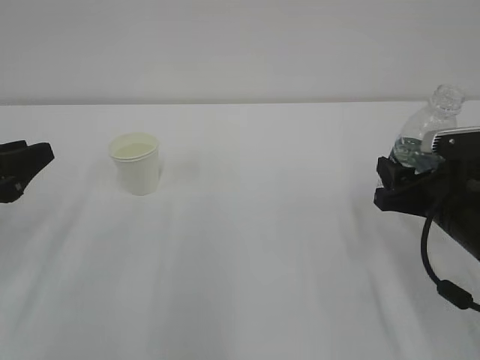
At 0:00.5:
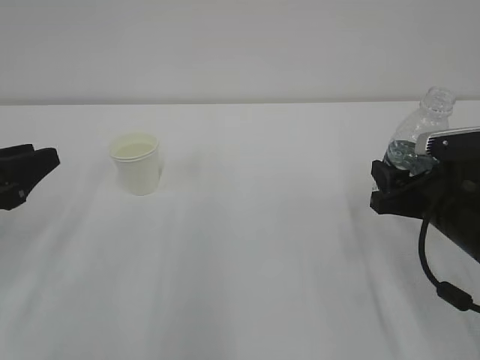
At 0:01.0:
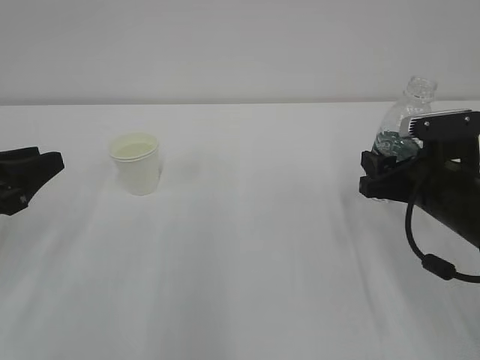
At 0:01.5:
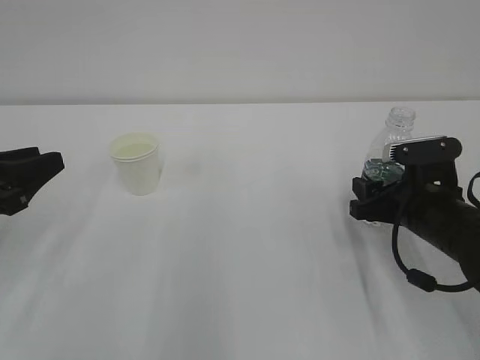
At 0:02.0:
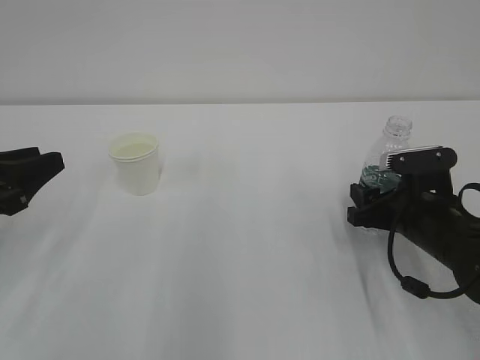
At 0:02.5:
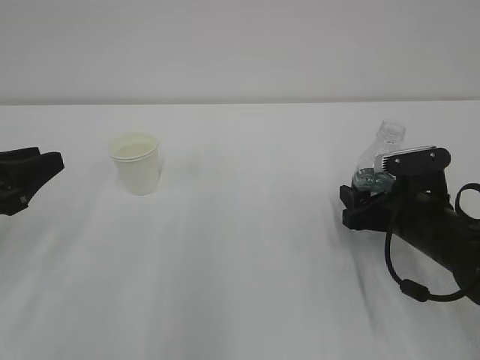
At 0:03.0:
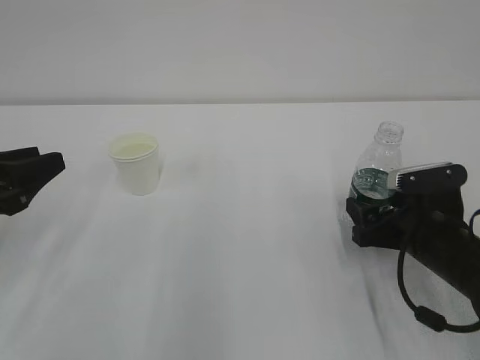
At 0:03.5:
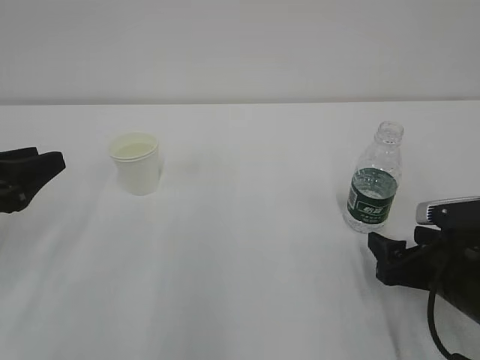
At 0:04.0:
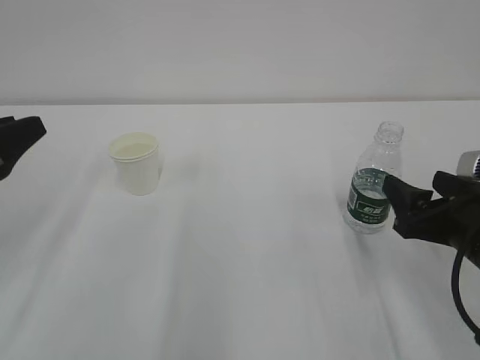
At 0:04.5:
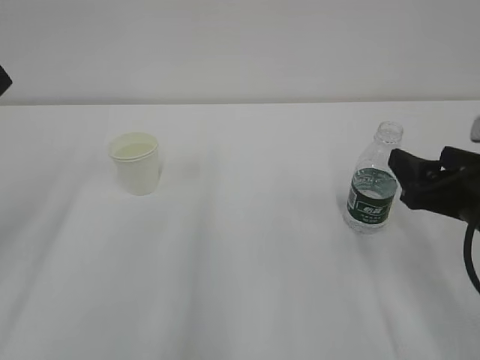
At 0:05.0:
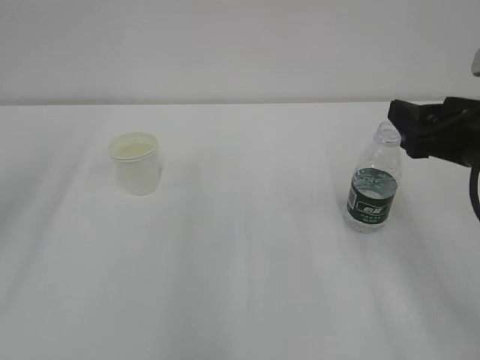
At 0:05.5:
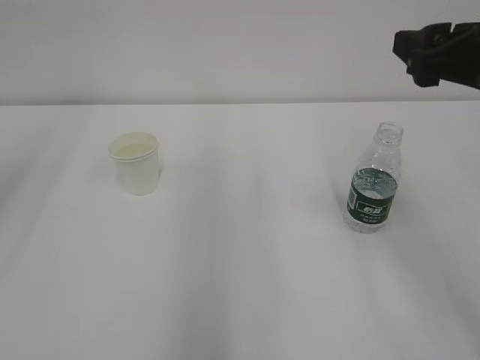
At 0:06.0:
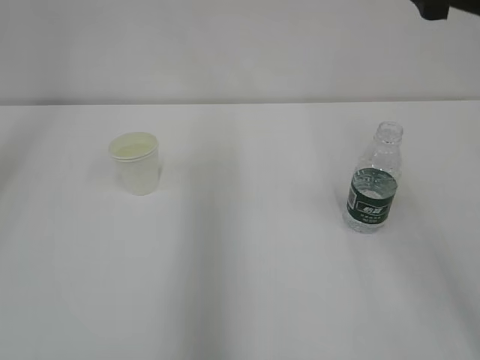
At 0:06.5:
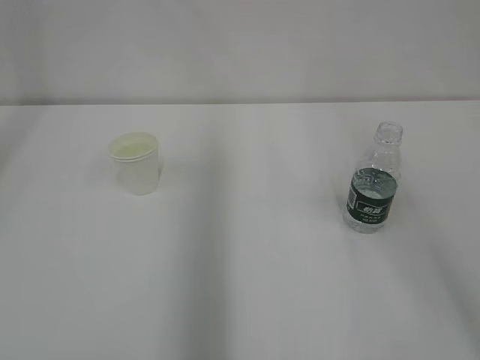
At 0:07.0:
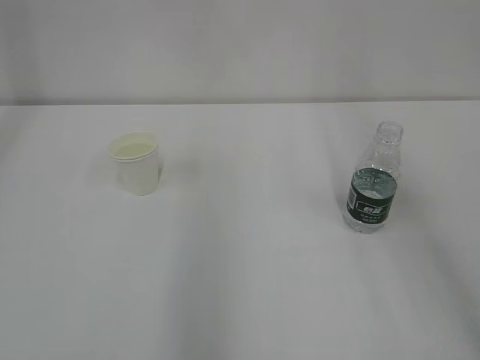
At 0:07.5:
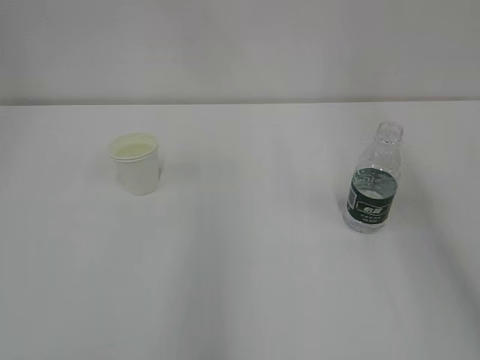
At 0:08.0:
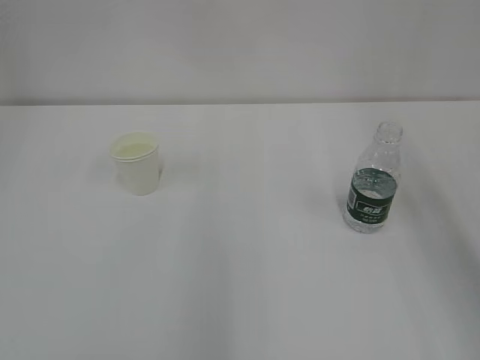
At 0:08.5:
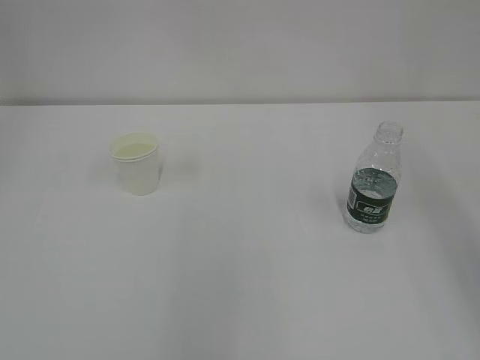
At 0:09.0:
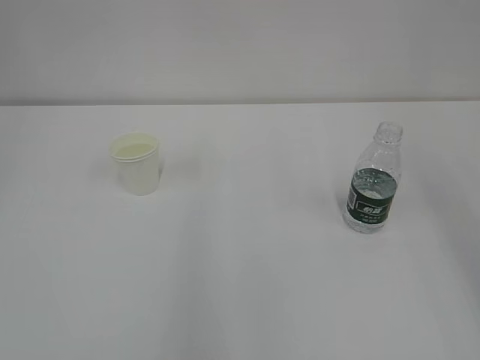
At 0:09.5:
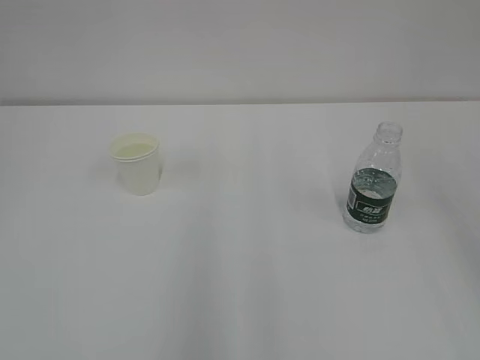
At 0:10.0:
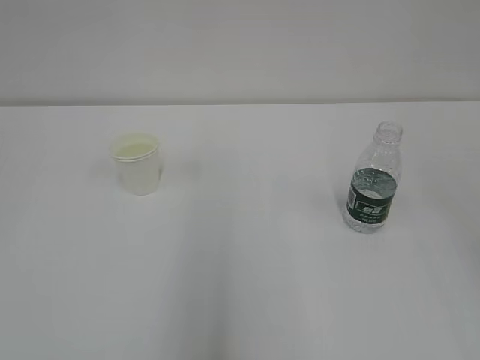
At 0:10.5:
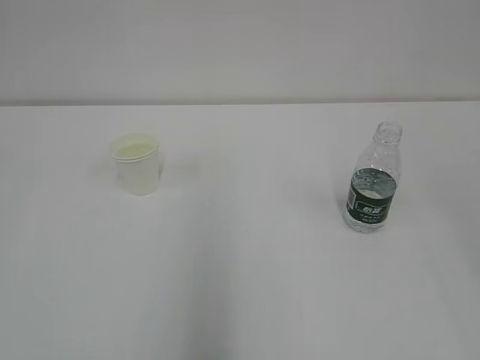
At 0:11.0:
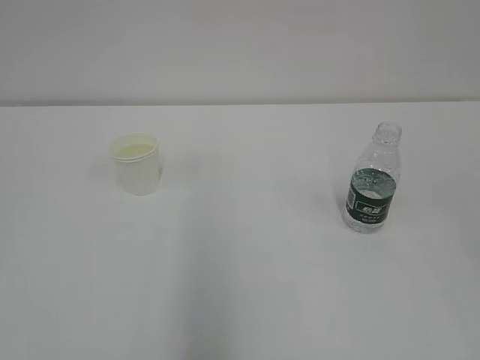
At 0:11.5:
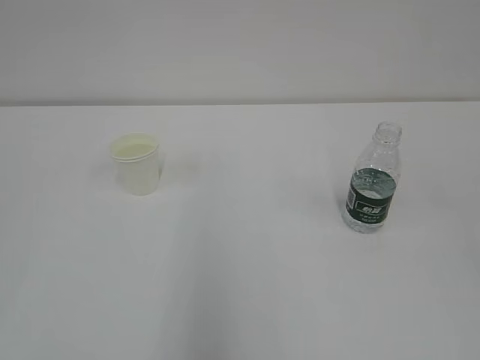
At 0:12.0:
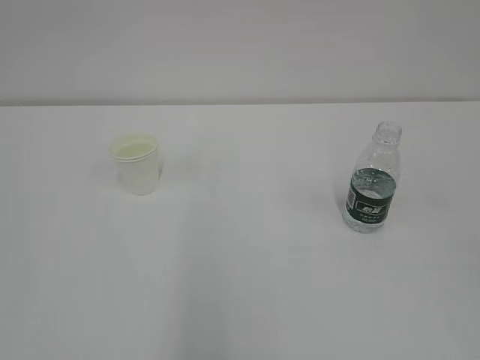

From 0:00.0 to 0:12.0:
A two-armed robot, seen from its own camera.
From 0:00.0 to 0:02.0: The right gripper shifts by roughly 5 cm.
From 0:02.0 to 0:04.0: The right gripper travels backward and upward by about 10 cm, and opens.
From 0:04.0 to 0:06.0: The grippers both shift upward by some 20 cm.
From 0:06.0 to 0:08.0: The right gripper goes some 20 cm upward and backward.

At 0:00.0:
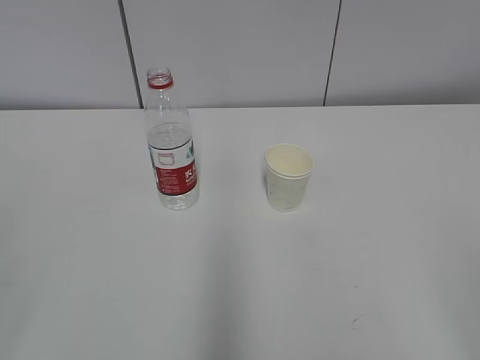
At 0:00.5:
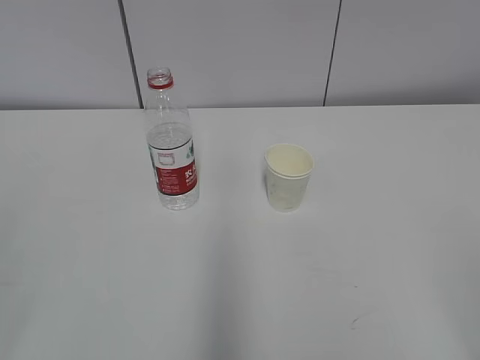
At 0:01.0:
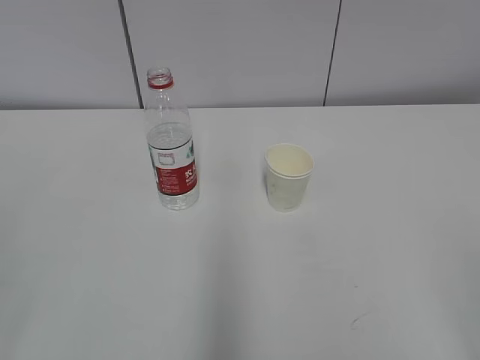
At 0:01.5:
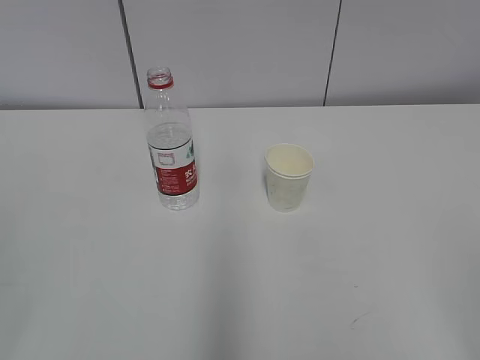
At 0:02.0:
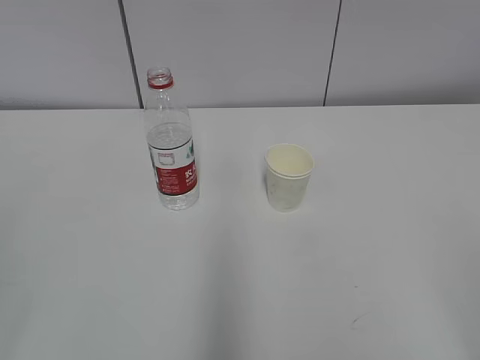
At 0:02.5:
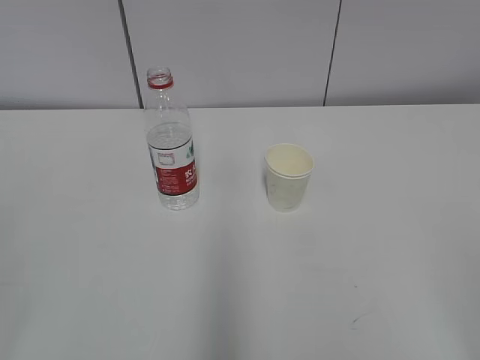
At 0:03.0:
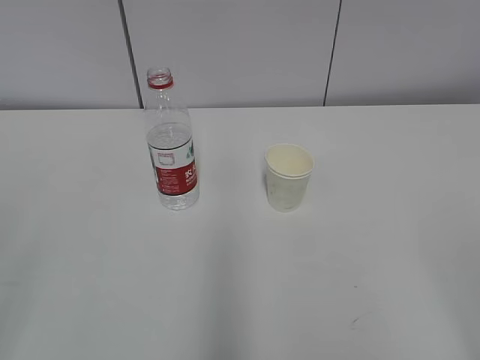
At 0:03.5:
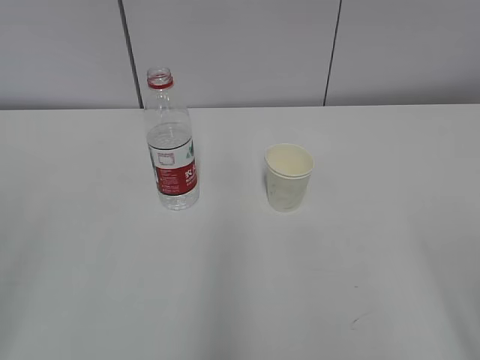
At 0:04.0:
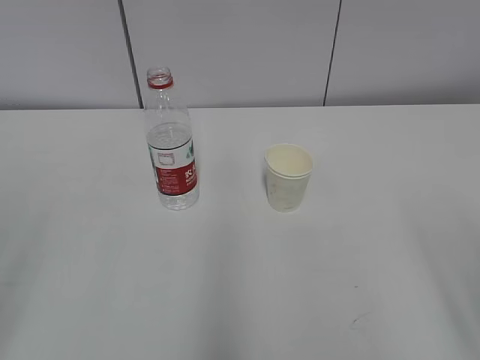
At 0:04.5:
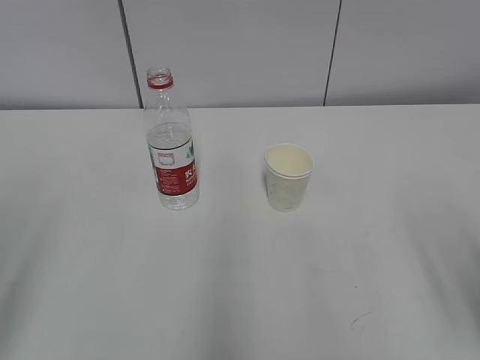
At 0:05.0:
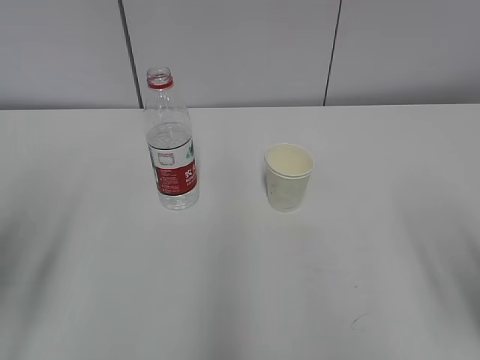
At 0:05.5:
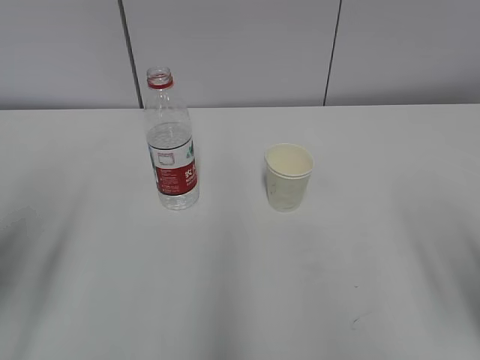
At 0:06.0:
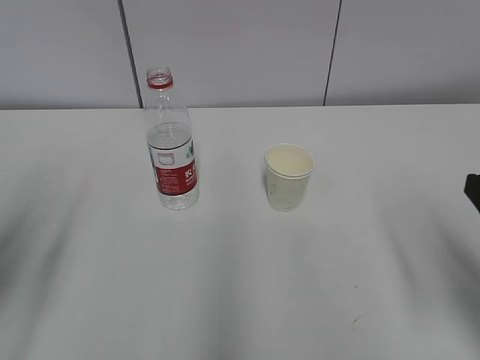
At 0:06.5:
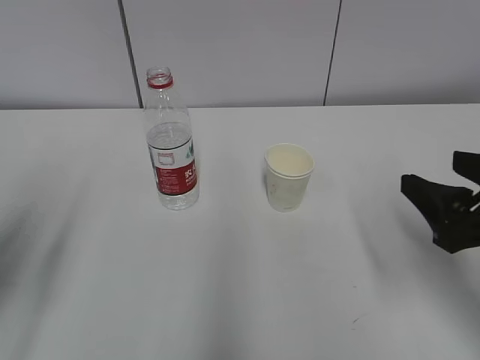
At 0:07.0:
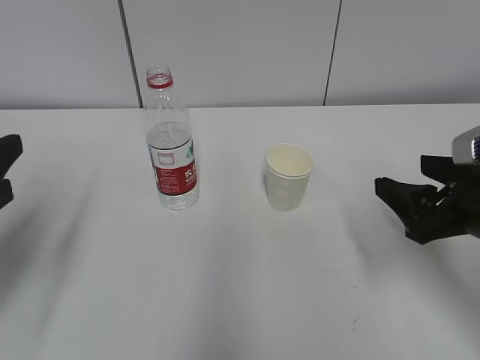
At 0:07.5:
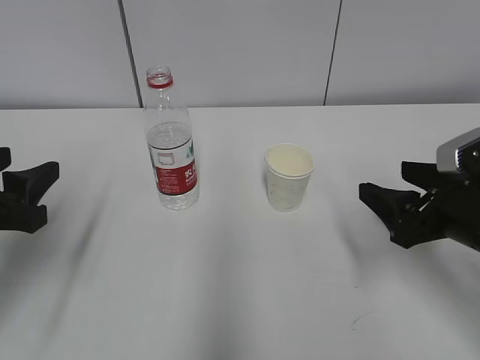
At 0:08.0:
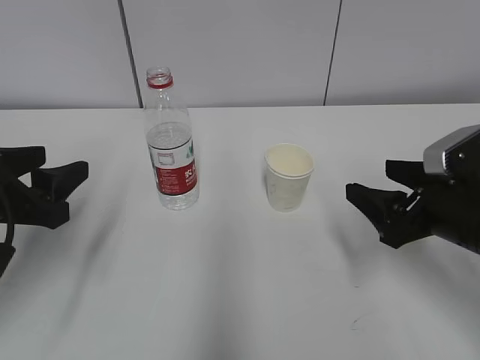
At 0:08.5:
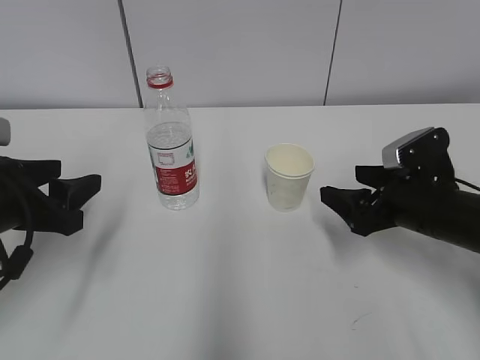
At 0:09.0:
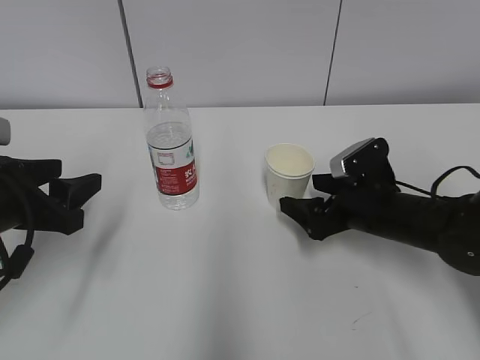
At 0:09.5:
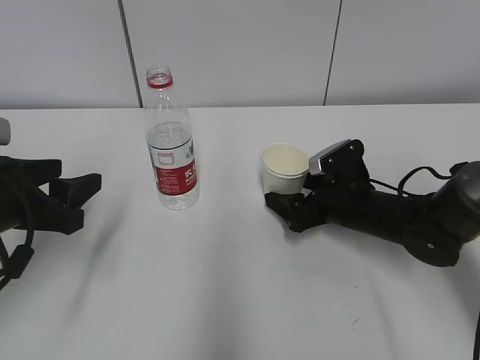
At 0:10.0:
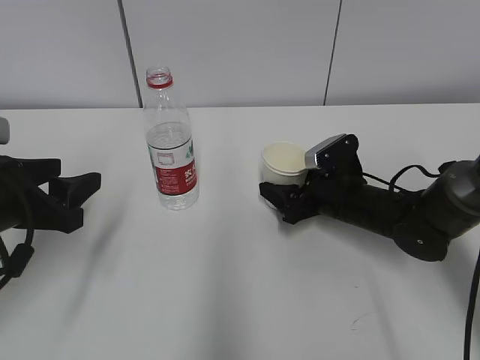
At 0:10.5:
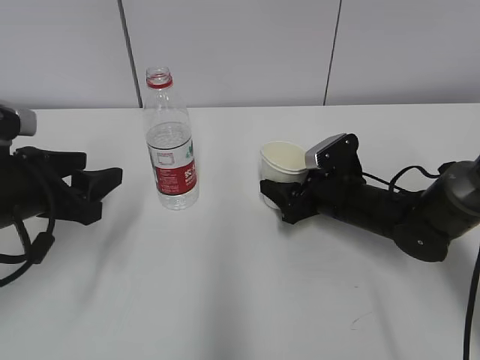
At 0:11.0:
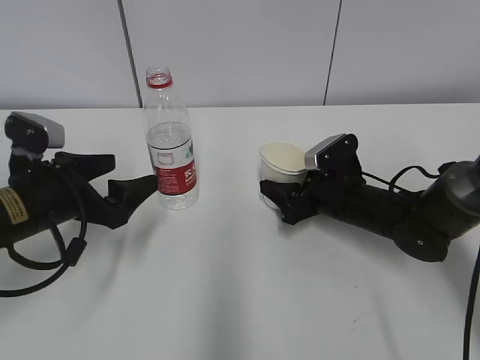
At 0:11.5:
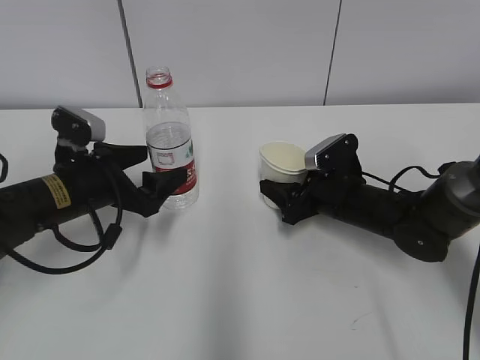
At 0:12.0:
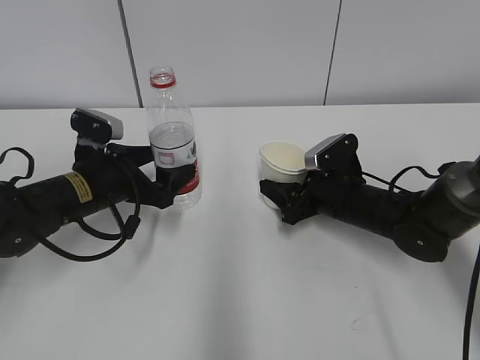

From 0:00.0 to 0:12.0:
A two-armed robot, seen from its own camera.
Step, from 0:00.0 to 0:08.0: Grab the paper cup with the right hand.
Step, from 0:08.5 to 0:10.5: Grab the water bottle with the left hand.
From 0:04.0 to 0:06.0: The two grippers go some 10 cm forward.
From 0:06.0 to 0:08.0: Both grippers travel together forward and downward, approximately 10 cm.
From 0:08.0 to 0:10.0: The right gripper moves forward, downward and to the left, some 15 cm.
From 0:10.0 to 0:12.0: The left gripper is displaced forward, downward and to the right by roughly 15 cm, and opens; the right gripper closes up.

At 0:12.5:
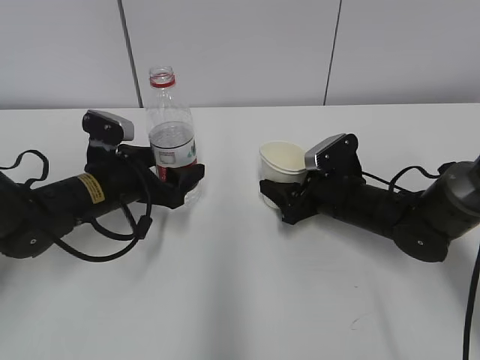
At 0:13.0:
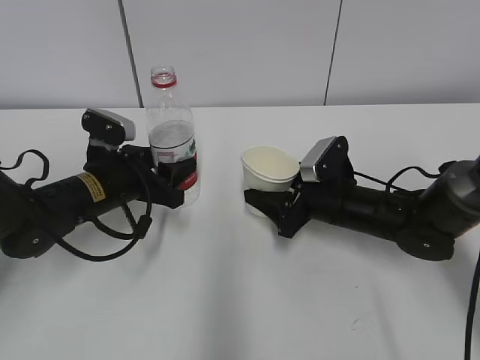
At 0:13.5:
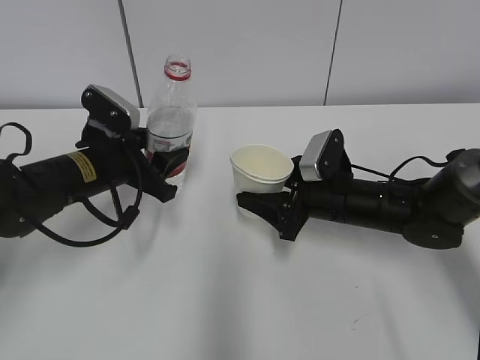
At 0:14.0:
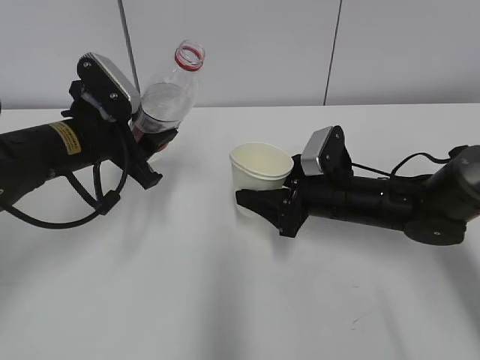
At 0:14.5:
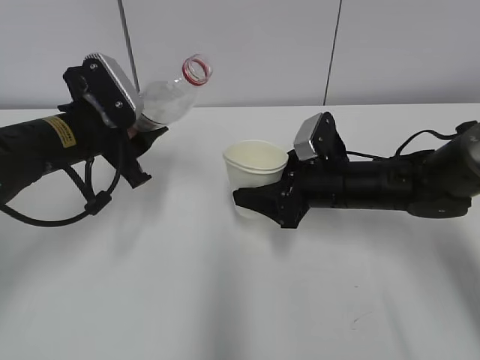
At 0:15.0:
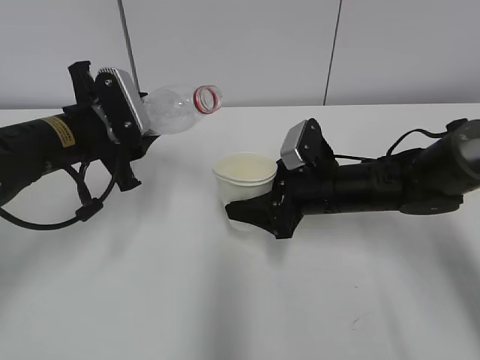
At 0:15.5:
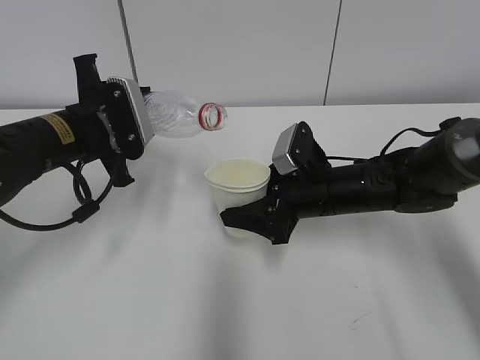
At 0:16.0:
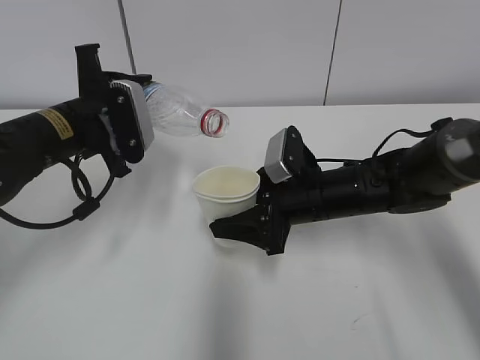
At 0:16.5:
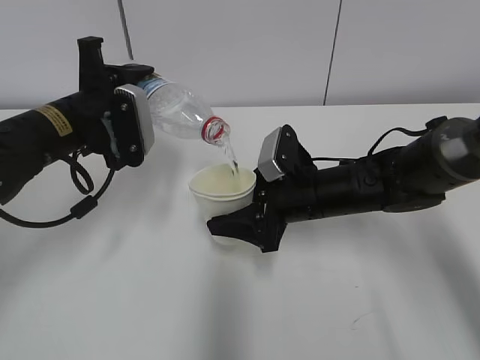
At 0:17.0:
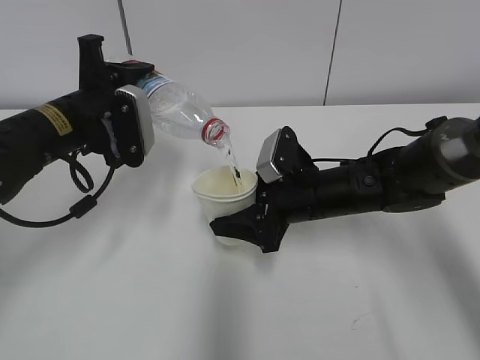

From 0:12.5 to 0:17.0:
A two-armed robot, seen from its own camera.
From 0:12.5 to 0:14.5: The left gripper travels upward by roughly 10 cm, and closes; the right gripper changes place by approximately 5 cm.
